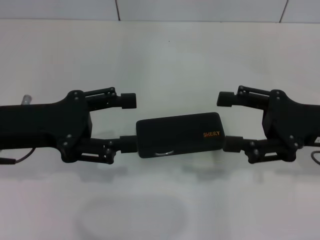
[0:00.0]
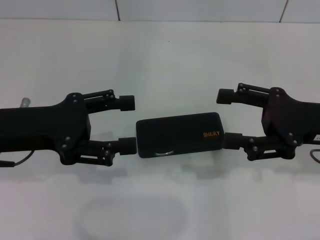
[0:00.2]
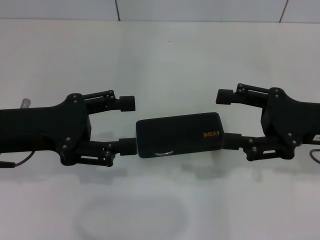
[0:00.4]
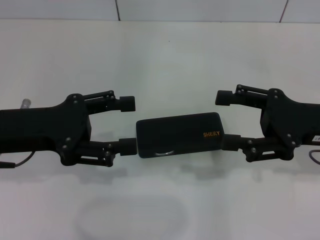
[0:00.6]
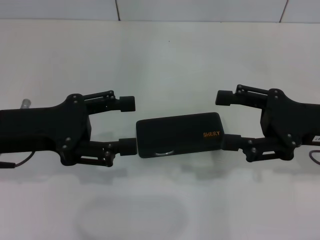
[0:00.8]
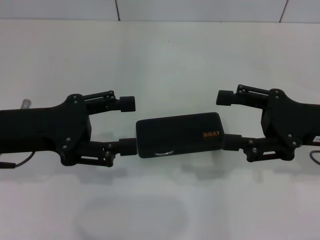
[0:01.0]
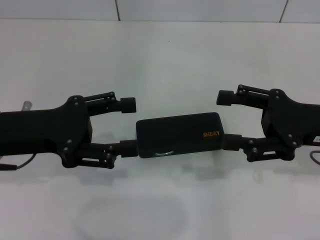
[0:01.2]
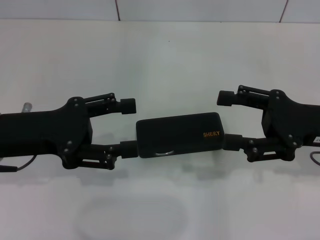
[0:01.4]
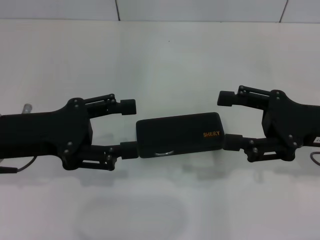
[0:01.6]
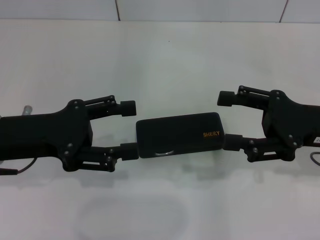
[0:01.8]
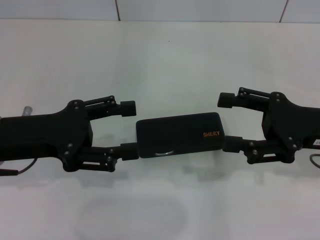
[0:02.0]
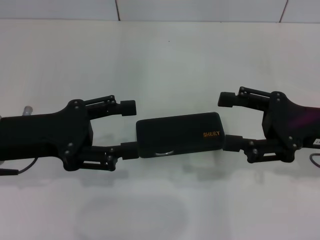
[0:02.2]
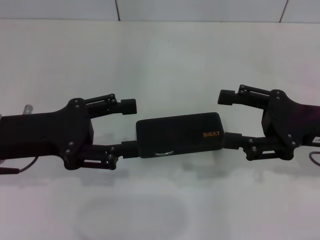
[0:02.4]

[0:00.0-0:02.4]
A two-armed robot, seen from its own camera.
0:00.0 to 0:01.2: Neither gripper changes place.
0:01.2 to 0:02.4: Both grippers stay about where they are.

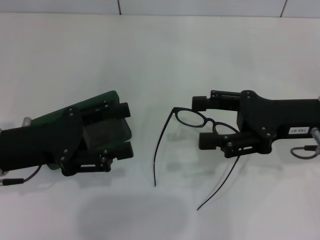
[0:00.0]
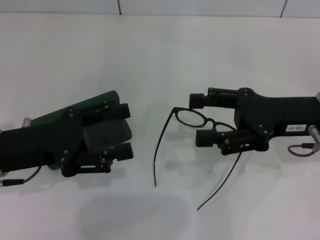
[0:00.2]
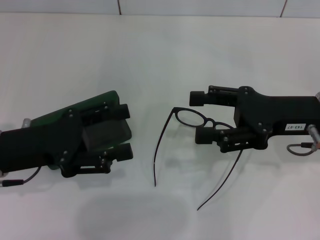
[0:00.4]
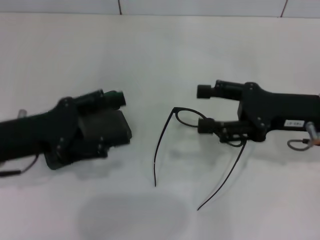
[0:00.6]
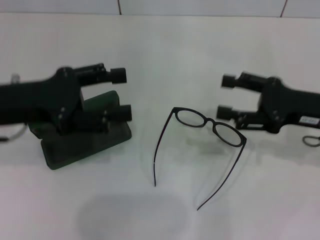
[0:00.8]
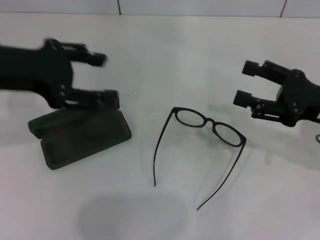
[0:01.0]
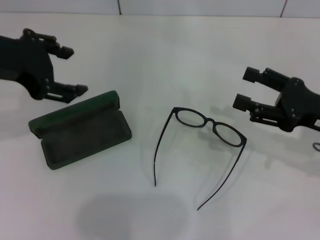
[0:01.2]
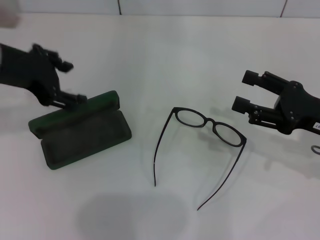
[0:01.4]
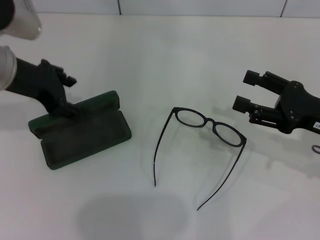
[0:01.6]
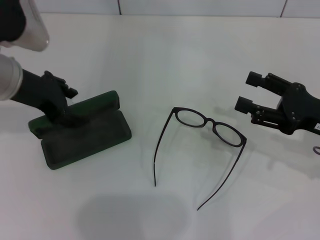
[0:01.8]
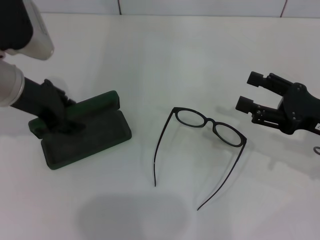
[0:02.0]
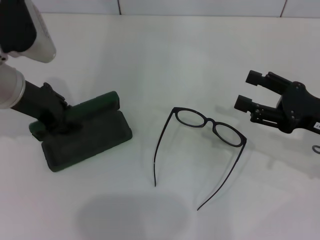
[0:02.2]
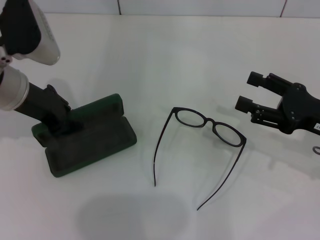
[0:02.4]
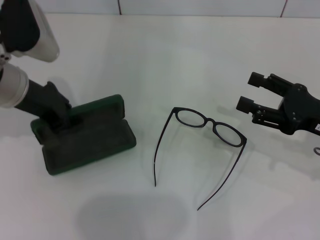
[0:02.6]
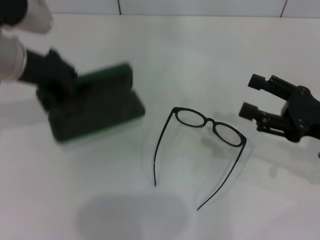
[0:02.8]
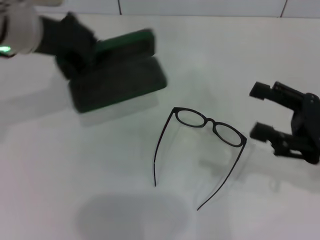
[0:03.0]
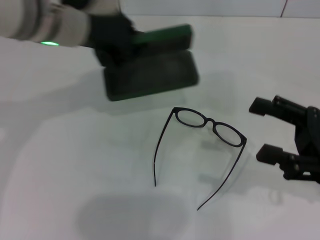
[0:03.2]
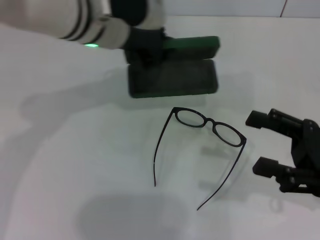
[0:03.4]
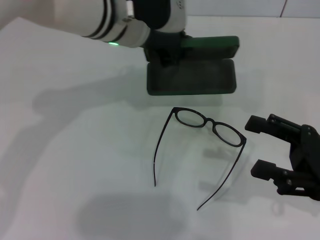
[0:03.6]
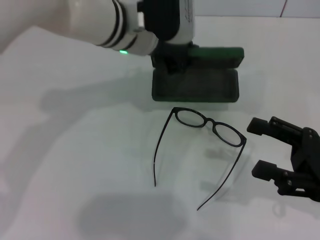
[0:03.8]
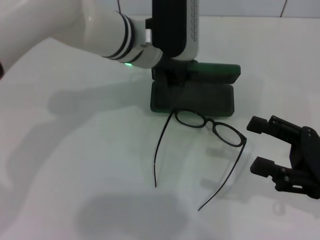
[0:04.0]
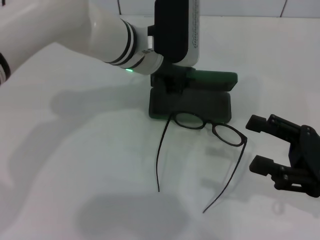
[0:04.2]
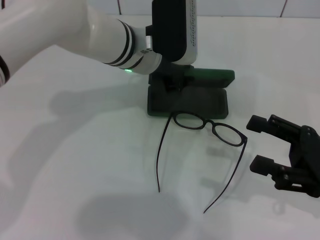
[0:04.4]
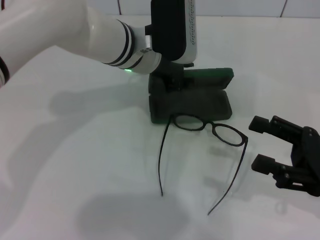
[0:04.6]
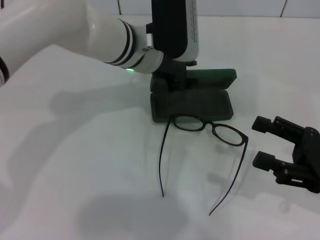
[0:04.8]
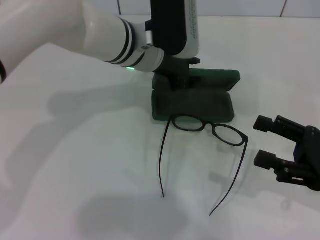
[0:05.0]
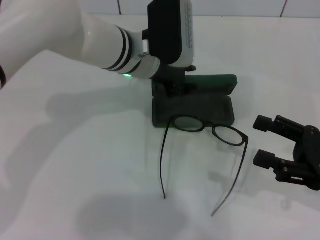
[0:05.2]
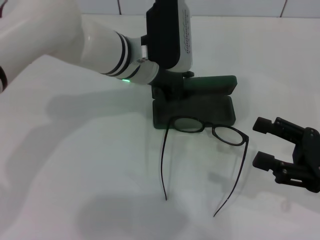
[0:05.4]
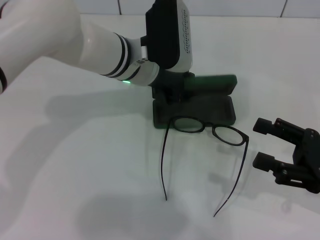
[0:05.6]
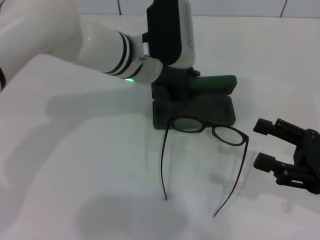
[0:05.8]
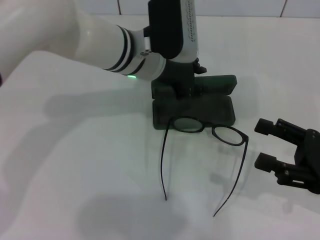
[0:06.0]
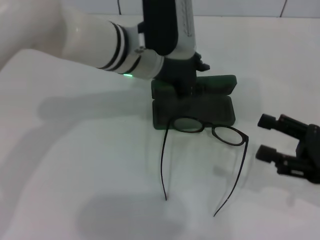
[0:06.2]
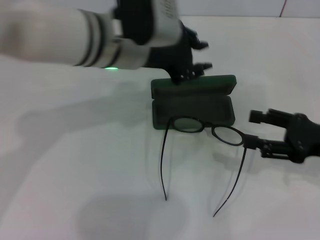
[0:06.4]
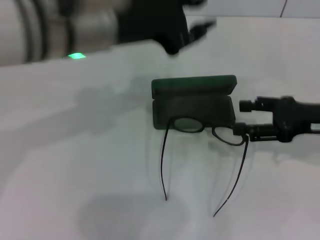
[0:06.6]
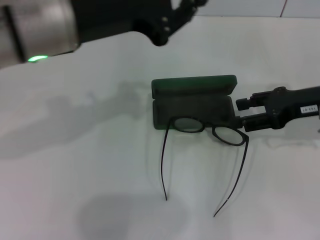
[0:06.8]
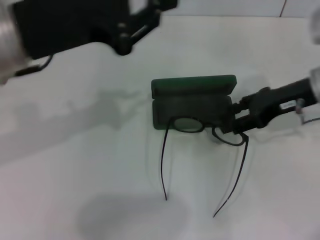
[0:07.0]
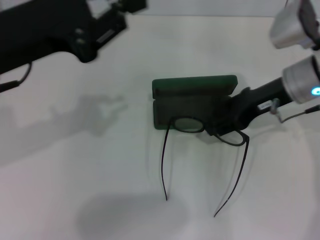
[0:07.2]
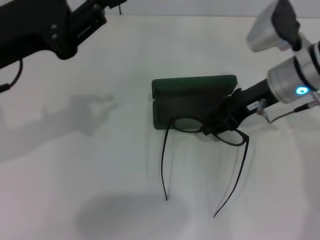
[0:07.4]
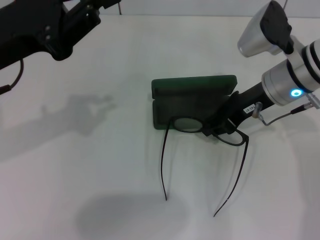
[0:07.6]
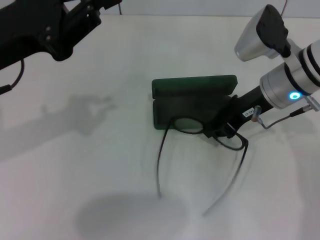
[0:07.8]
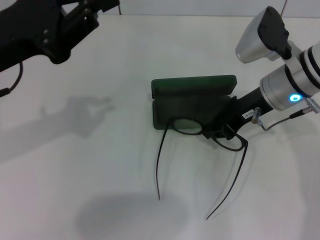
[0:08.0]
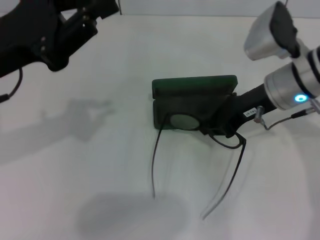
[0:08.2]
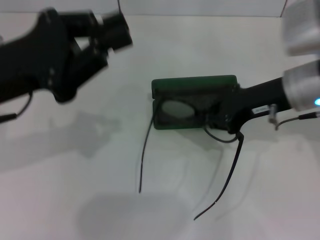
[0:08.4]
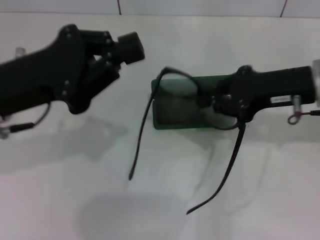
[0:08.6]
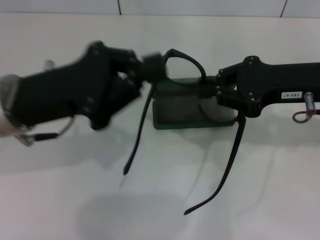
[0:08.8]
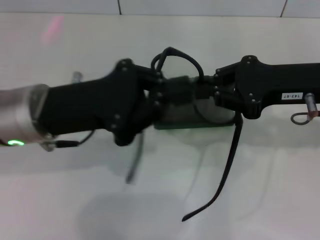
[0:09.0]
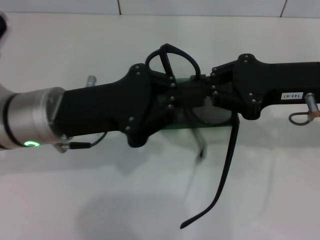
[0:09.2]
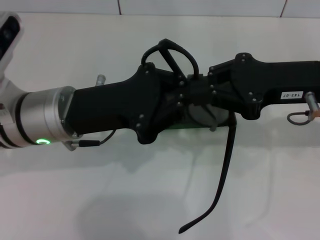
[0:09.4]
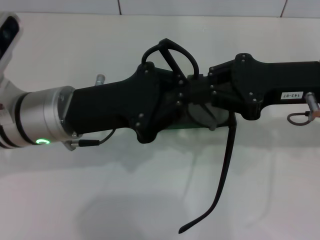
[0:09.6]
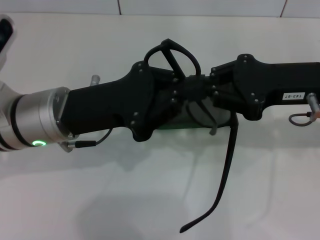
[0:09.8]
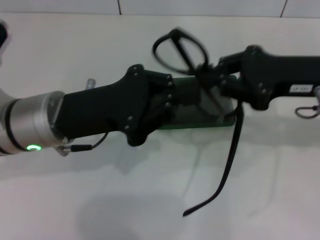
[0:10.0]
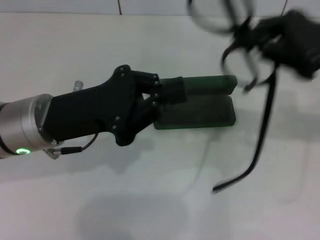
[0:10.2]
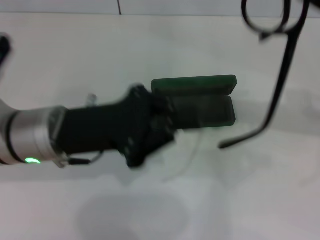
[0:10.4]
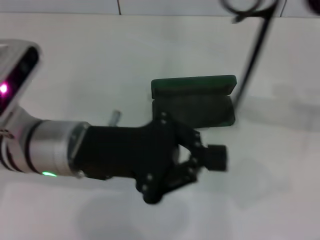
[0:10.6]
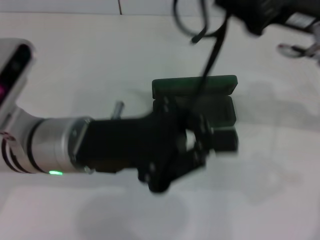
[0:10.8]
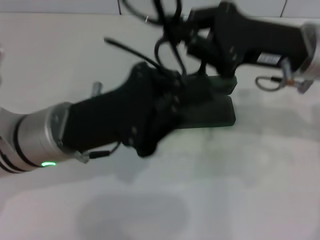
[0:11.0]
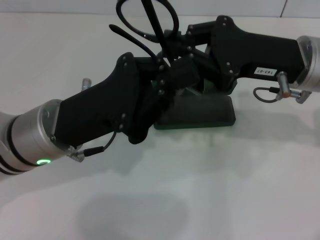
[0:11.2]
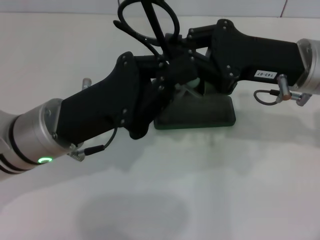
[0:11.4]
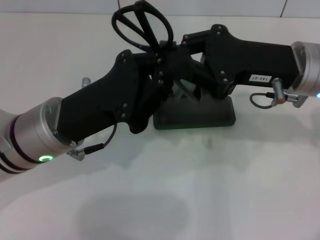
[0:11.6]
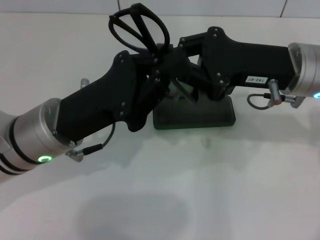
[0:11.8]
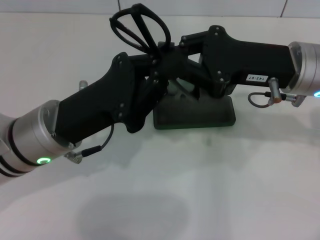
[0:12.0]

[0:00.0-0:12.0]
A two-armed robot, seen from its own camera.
Step, 0:00.0 to 0:02.0: Grab the glasses case with your left hand.
Step, 0:02.2 to 0:05.6: Place the glasses case in the center of the table with your left hand.
Step, 0:05.8 to 0:07.6: Grab the eyeglass frame with your right hand.
Step, 0:07.8 to 0:12.0: Fold the frame with your left hand.
0:00.0 to 0:01.6: The right gripper is displaced to the right by about 5 cm. The left gripper travels forward and upward by roughly 10 cm.
0:01.6 to 0:03.0: The left gripper moves some 5 cm, and closes its fingers.
0:03.0 to 0:04.4: The left gripper shifts approximately 15 cm to the right and downward.
0:04.4 to 0:06.0: The left gripper opens its fingers.
0:06.0 to 0:07.6: The right gripper moves forward and to the left, roughly 20 cm, and closes its fingers. The left gripper moves to the left and backward, about 20 cm.
0:07.6 to 0:09.0: The left gripper moves to the right and downward, approximately 10 cm. The right gripper heads backward and to the right, covering approximately 10 cm, and closes up.
0:09.0 to 0:10.4: The right gripper heads upward, covering approximately 5 cm.
0:10.4 to 0:12.0: The right gripper goes about 10 cm to the left and downward.

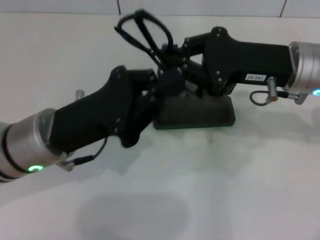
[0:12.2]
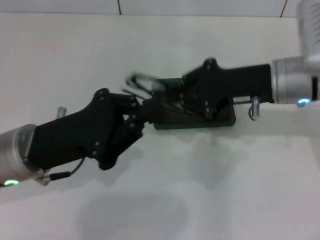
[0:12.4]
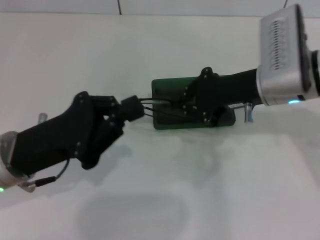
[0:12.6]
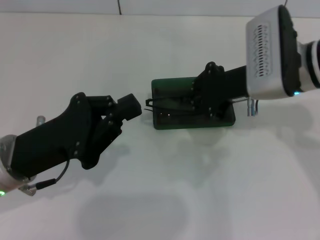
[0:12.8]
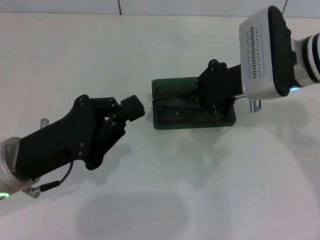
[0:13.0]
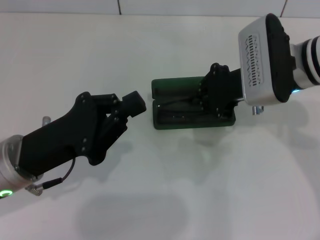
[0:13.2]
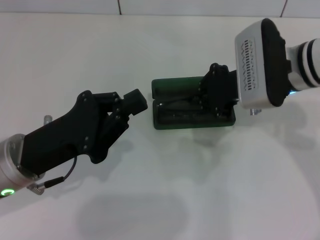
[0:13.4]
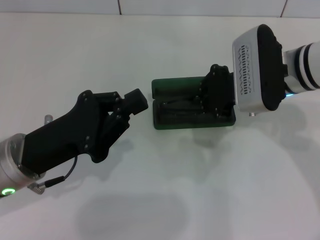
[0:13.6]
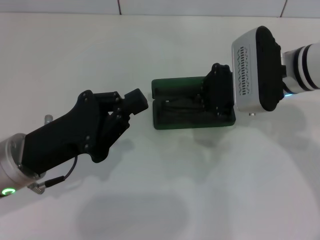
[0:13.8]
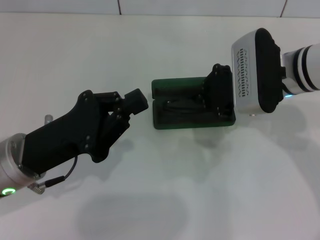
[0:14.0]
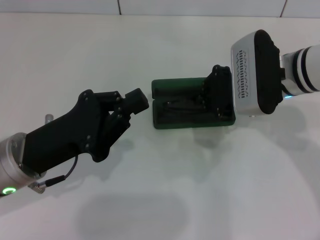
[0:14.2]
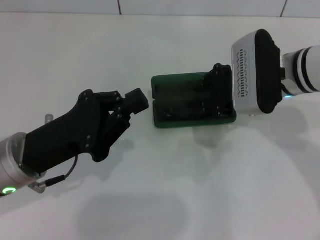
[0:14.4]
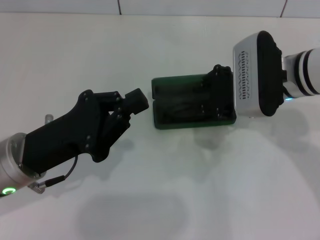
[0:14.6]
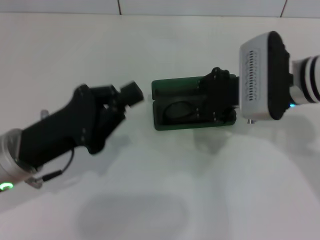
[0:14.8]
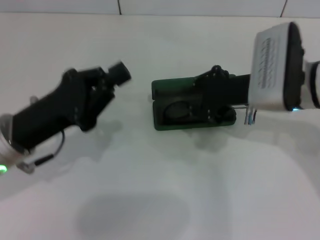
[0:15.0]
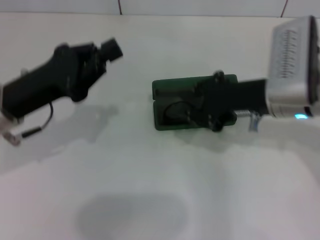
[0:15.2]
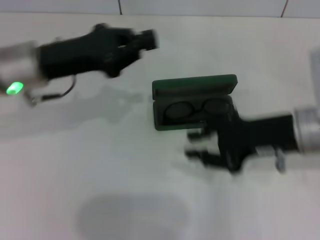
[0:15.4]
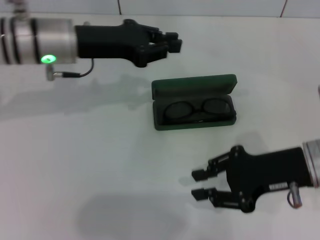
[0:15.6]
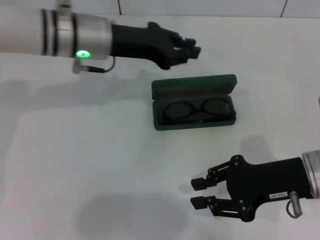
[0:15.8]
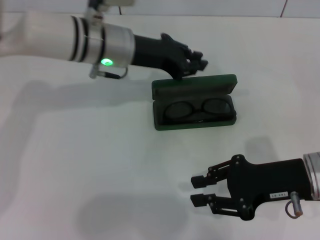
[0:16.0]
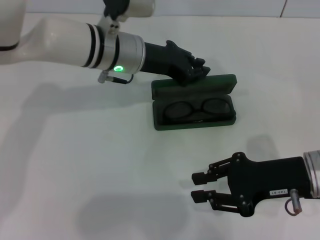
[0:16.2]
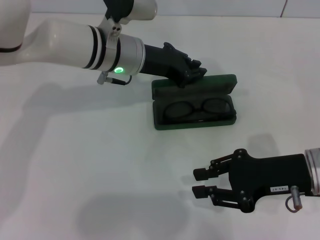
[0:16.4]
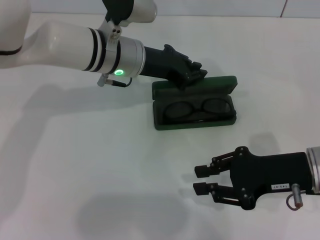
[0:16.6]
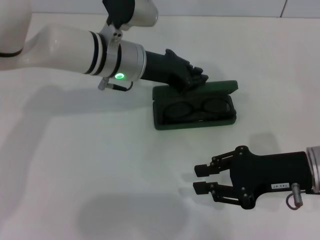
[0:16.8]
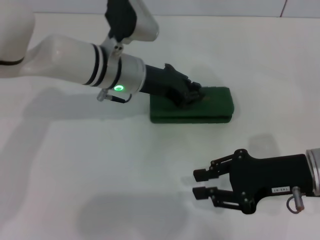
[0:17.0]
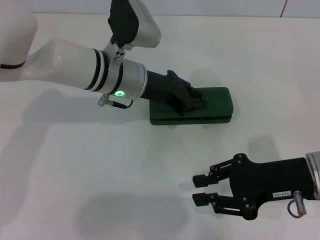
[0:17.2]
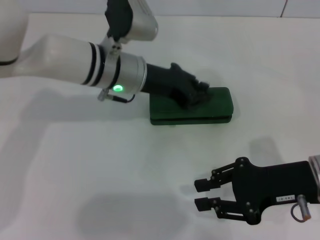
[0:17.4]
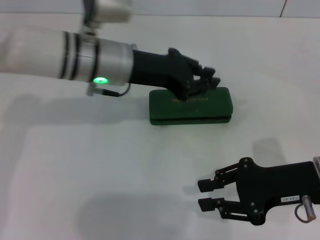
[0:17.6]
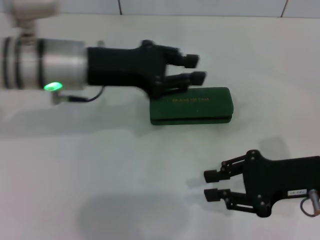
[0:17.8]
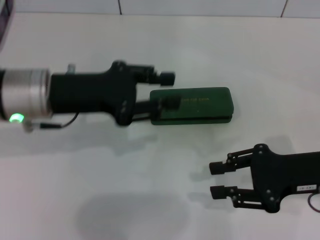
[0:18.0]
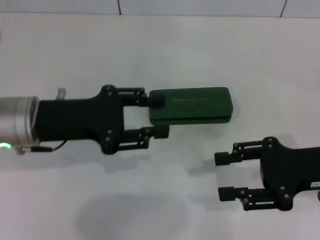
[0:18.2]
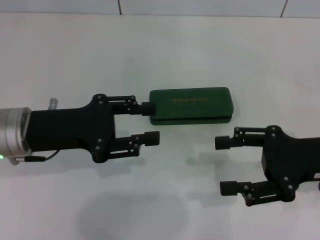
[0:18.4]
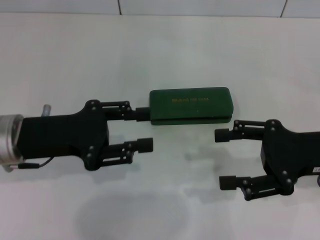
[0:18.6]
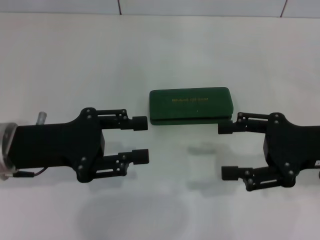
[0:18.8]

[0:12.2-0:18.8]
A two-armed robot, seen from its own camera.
Step, 0:12.2 to 0:14.8: Put the glasses into the case with your right hand.
Step, 0:15.0 to 0:16.8: Close the glasses case with your left hand.
0:13.8 to 0:15.4: The left gripper goes about 15 cm forward and upward; the right gripper goes roughly 10 cm backward.
0:15.4 to 0:17.2: The right gripper shifts by about 5 cm; the left gripper moves to the right, approximately 10 cm.
0:17.2 to 0:18.8: The left gripper heads to the left and backward, covering some 20 cm, and opens; the right gripper changes place by some 5 cm, and opens its fingers.
